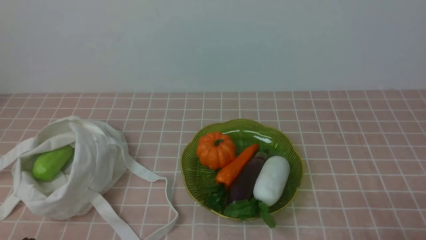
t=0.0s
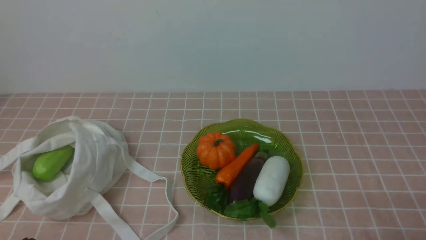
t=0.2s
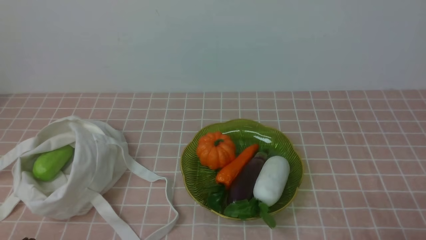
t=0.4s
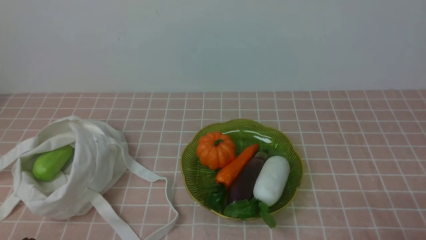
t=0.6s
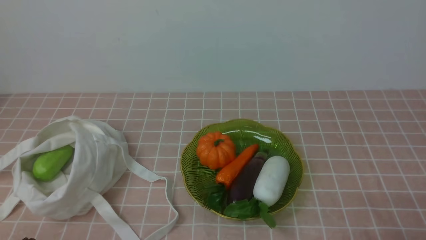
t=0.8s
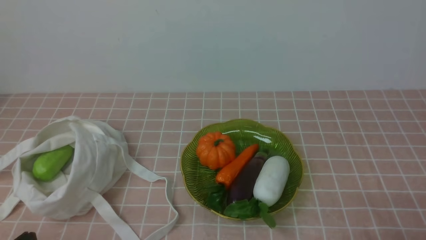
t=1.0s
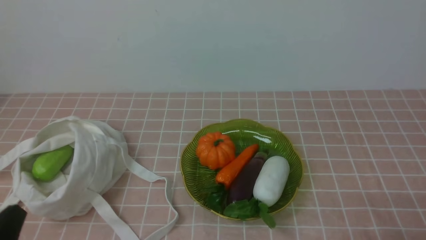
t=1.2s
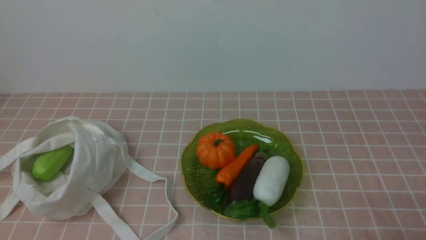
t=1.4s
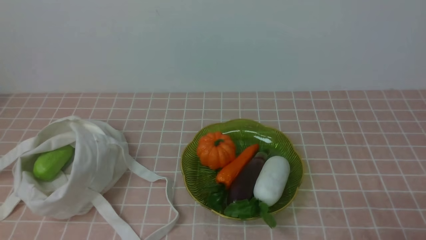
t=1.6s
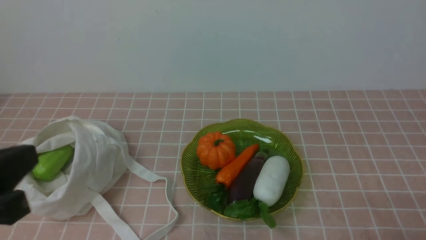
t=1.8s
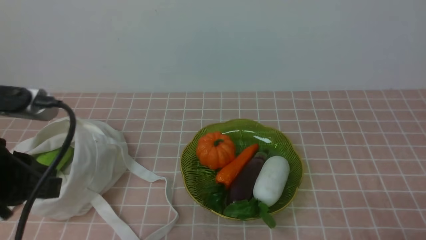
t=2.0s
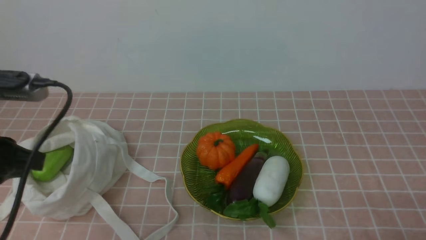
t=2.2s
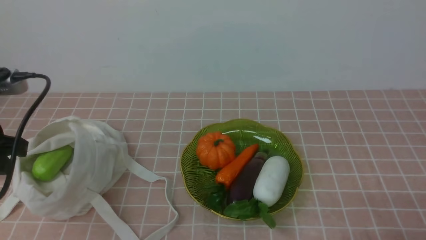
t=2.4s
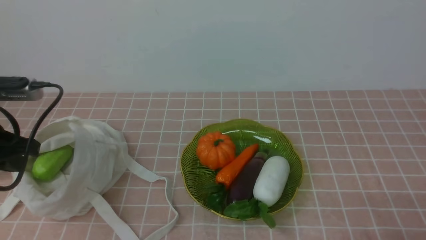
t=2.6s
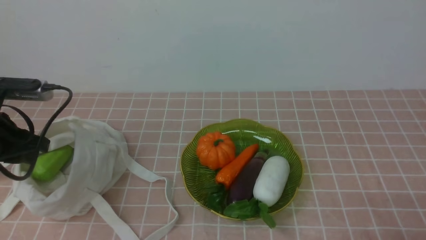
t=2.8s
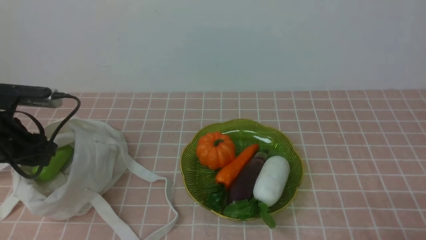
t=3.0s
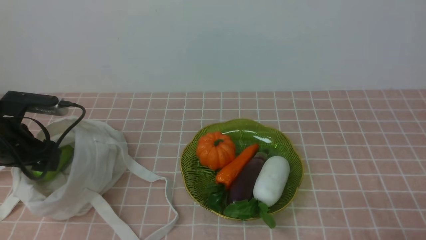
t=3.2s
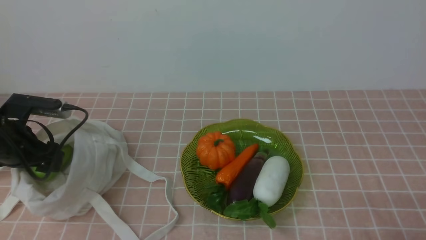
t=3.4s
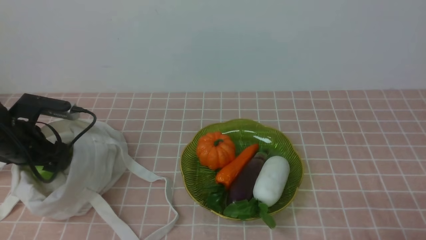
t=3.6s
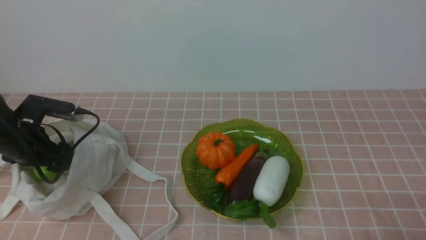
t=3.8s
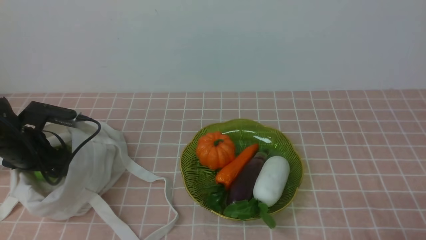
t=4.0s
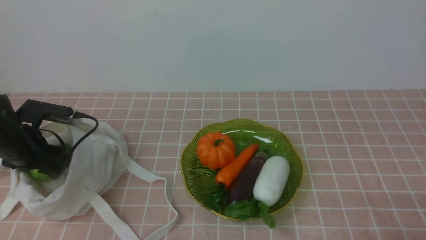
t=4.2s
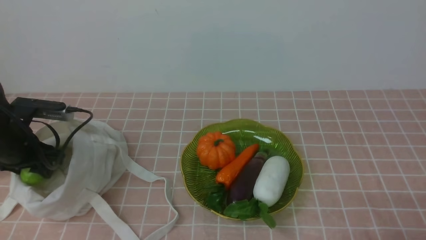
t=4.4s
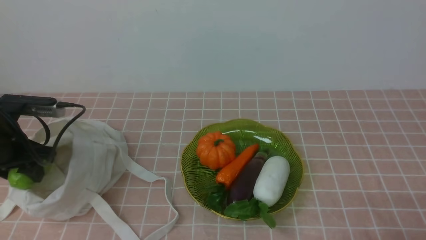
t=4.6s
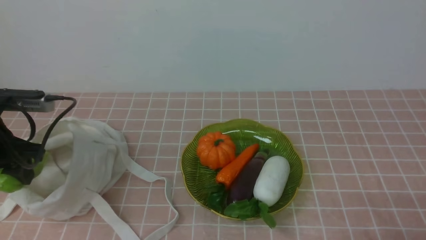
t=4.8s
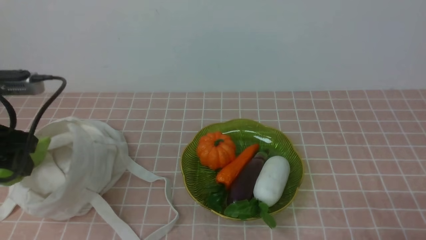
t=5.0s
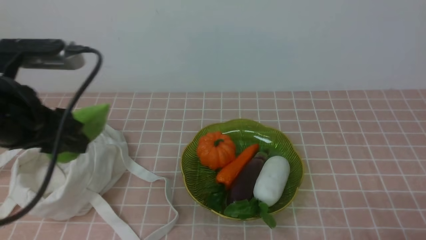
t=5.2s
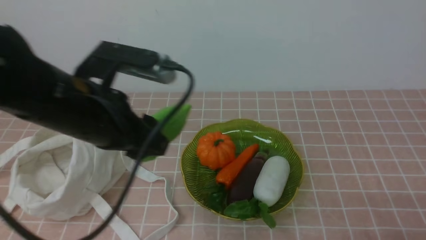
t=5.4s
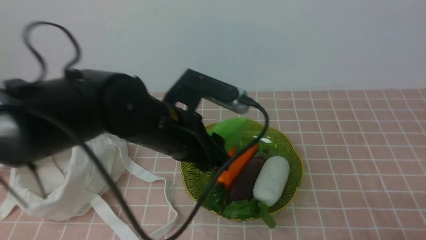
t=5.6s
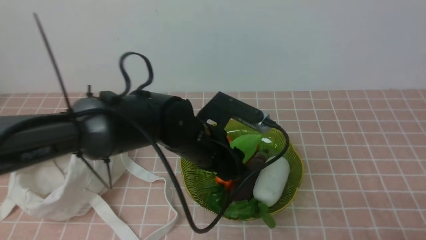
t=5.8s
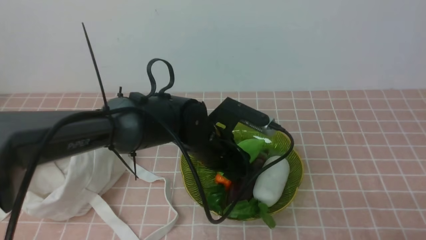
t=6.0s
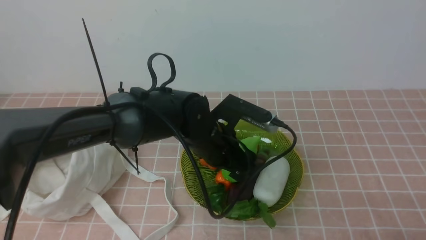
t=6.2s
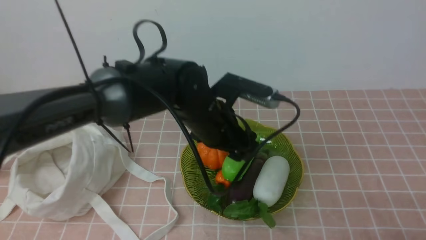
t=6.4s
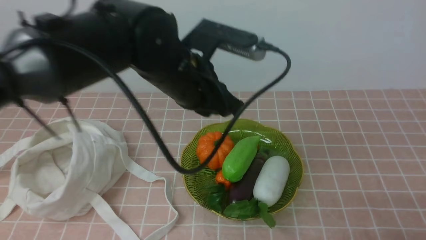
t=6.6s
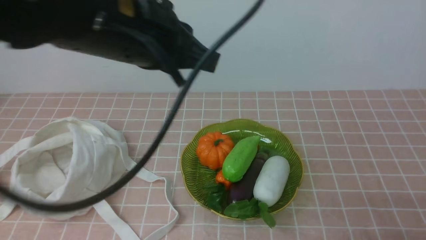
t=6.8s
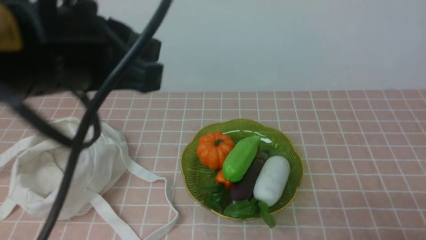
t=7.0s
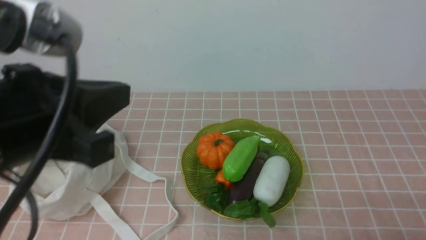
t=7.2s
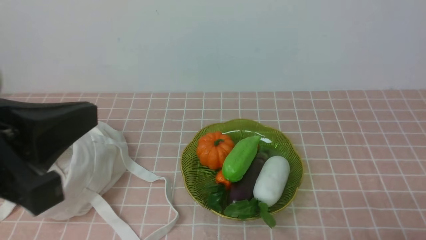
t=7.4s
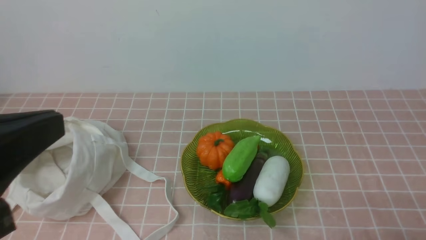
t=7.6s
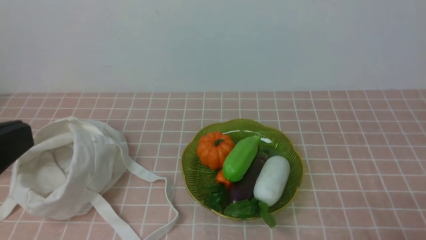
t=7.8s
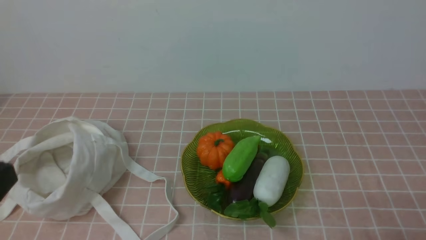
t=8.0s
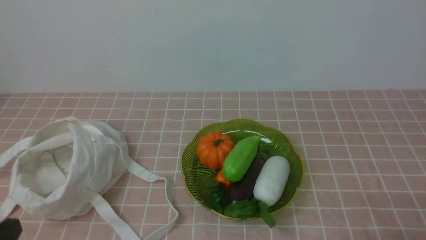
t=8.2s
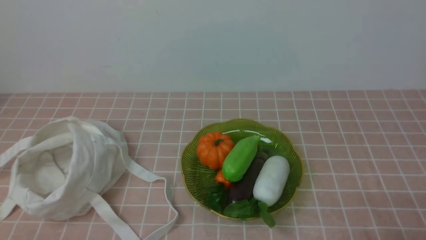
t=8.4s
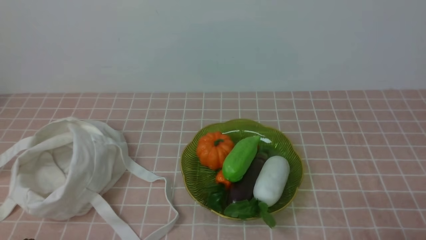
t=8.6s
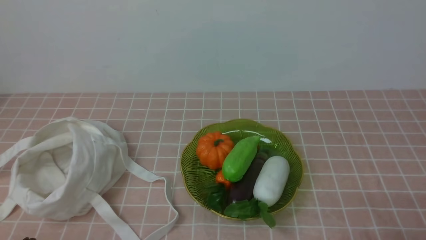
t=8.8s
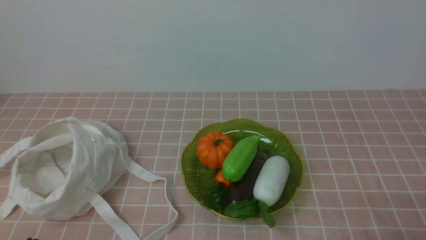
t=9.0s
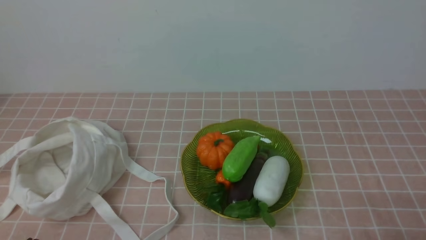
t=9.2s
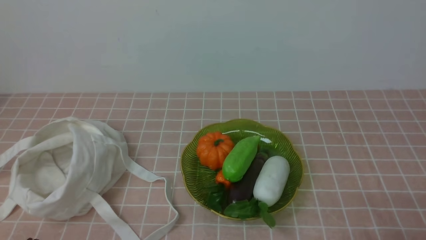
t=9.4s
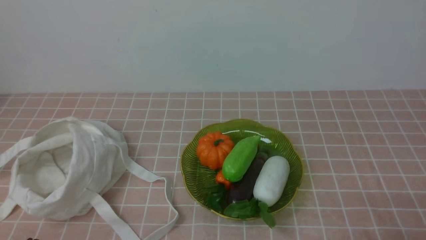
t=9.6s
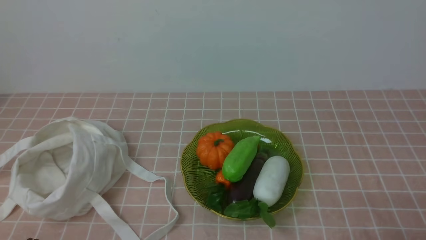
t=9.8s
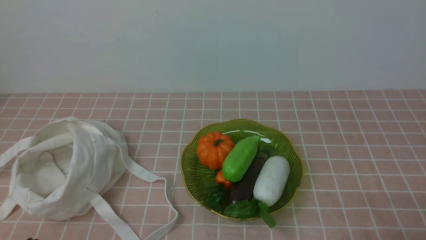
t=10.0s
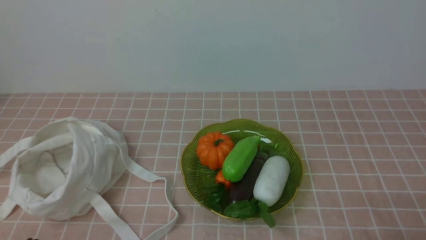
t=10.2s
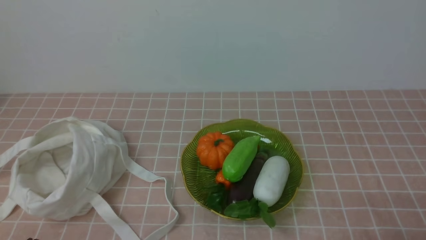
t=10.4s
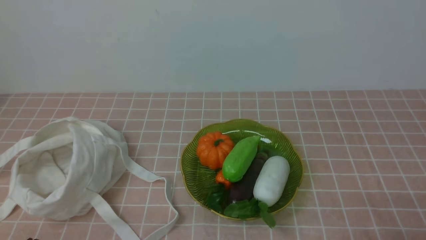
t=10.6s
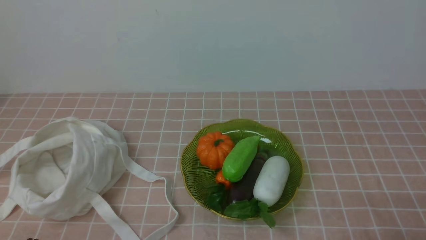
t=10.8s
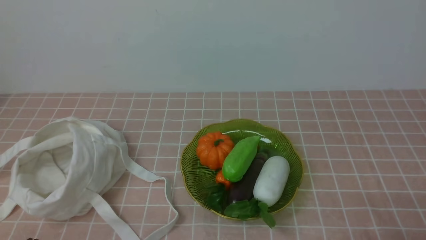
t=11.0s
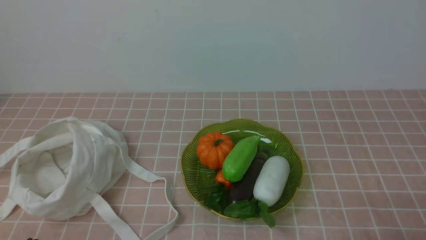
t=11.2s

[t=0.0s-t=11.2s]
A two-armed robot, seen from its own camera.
Task of the whole recording: take vegetables from bag on pink coffee tablecloth place on plate.
Step, t=0.0s to t=4.0s: Grasp the bitter melon with left gripper.
Step, t=4.4s to t=6.6s: Place the bitter melon on the plate with left gripper.
t=1.6s to t=3.2s: The left gripper moves forward and downward, approximately 25 cm, and opens its fingers.
t=3.2s to t=4.8s: The left gripper shifts some 5 cm upward.
t=4.8s to t=6.4s: The left gripper is displaced to the right by some 30 cm.
t=6.4s to t=8.0s: The left gripper moves backward and to the left, roughly 35 cm, and closes.
t=9.6s to t=11.2s: Both grippers stay put.

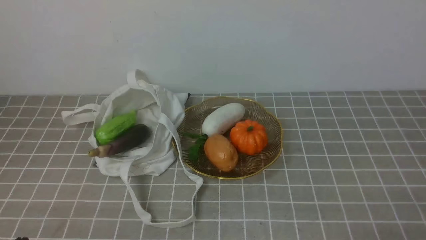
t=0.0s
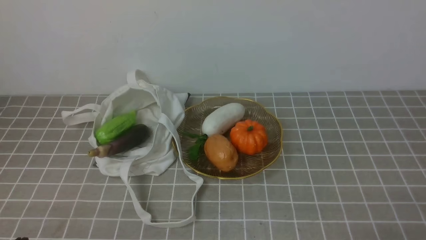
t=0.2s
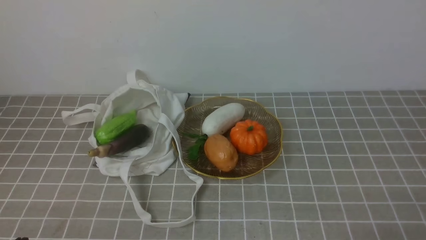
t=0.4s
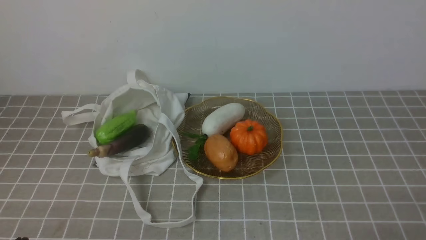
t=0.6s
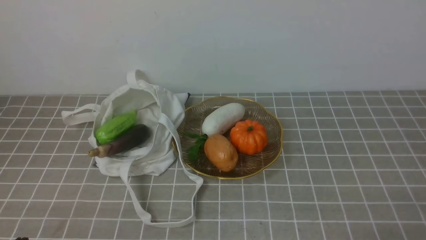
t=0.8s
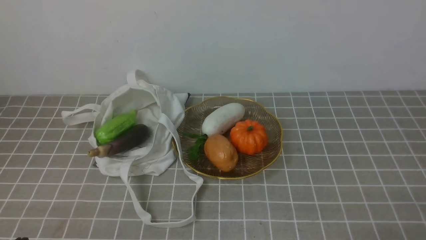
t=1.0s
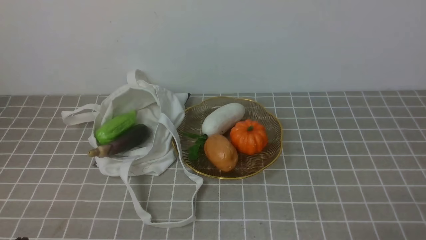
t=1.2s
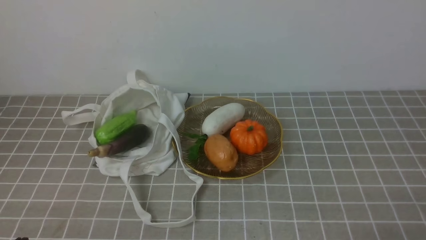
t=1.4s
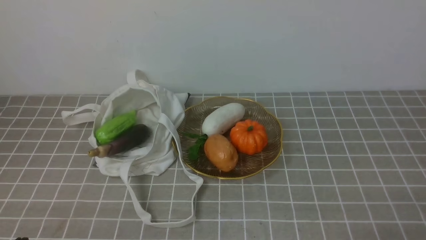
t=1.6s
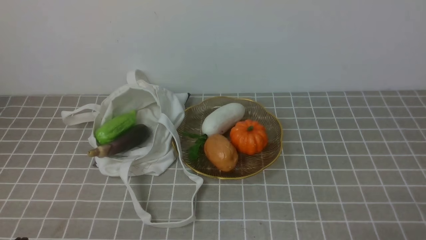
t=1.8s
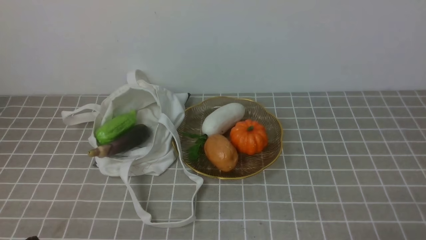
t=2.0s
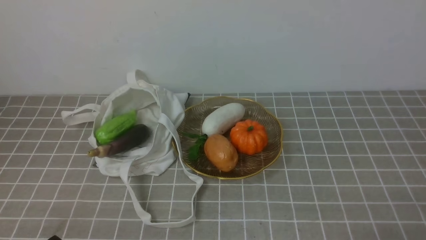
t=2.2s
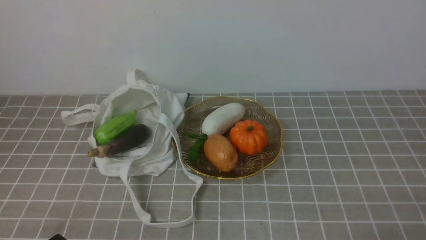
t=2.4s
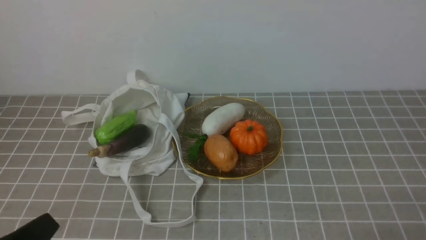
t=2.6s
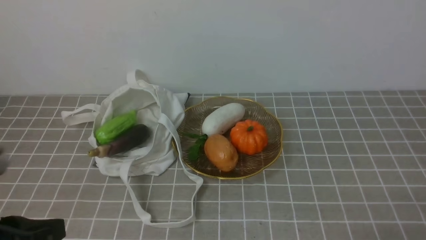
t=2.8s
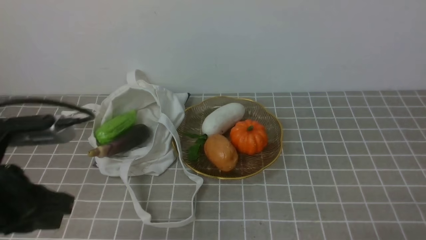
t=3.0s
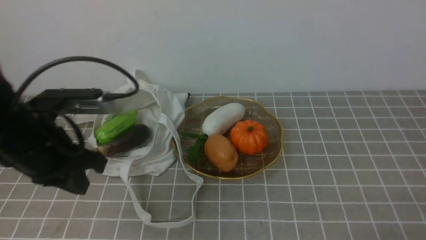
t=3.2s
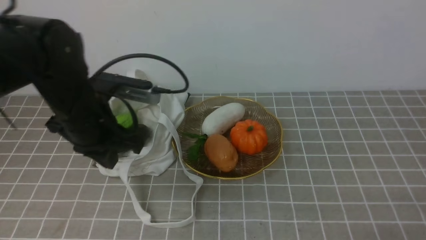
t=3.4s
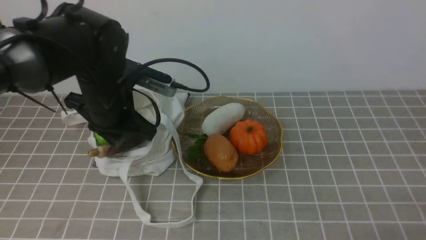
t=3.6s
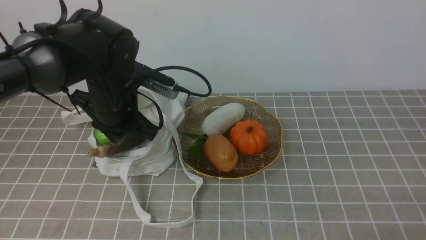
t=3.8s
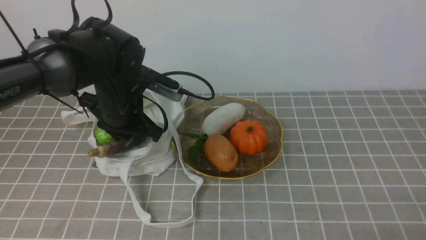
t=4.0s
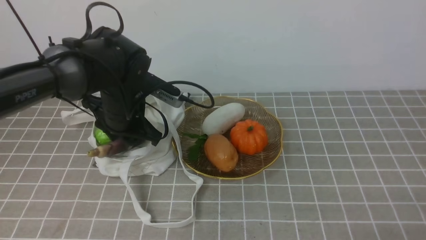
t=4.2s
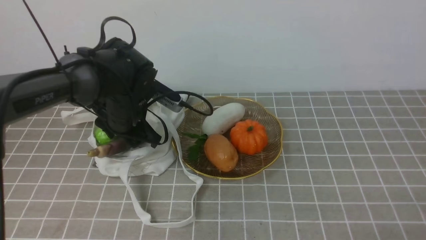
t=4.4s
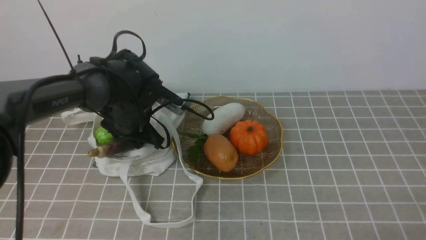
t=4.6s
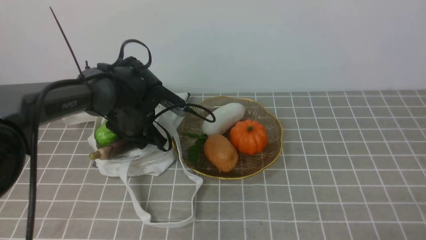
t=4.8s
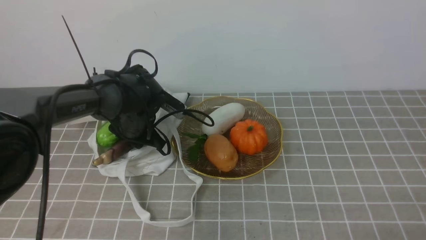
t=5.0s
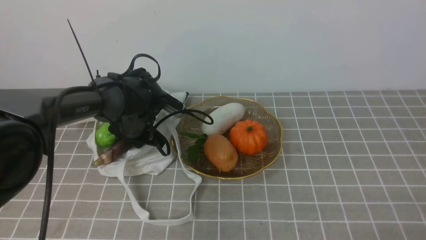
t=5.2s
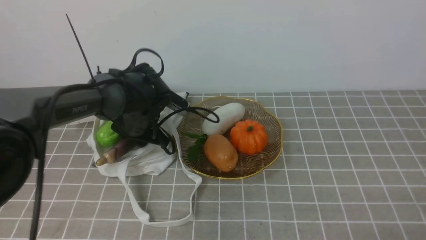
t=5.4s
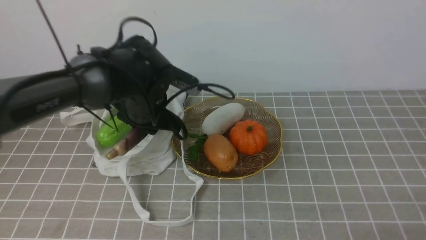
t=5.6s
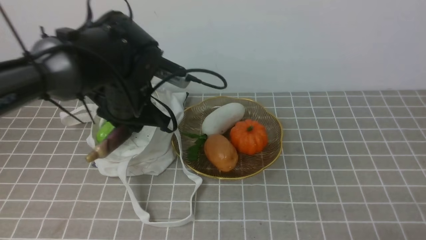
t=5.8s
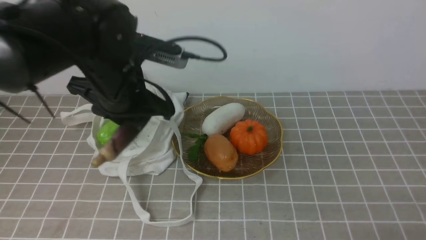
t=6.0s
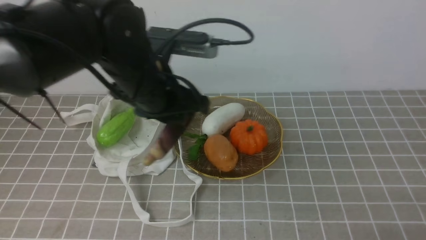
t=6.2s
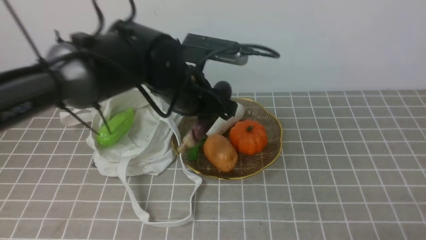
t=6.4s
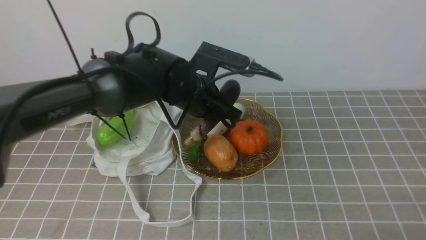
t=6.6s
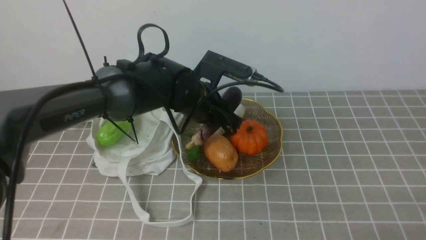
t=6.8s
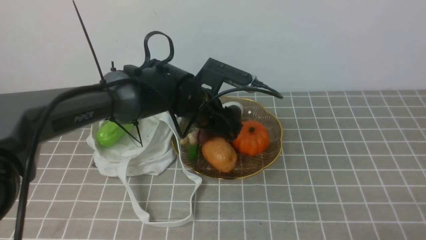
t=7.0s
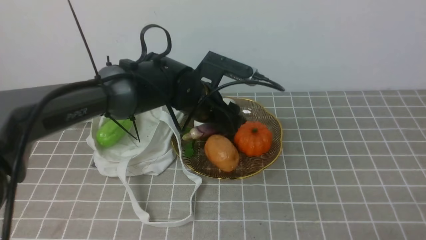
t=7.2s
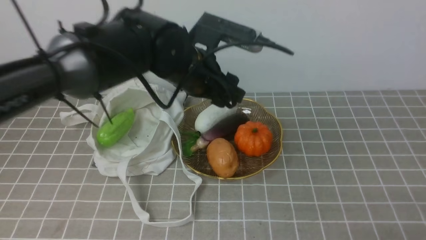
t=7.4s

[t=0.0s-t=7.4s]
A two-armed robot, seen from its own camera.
Task of the whole recording: take vegetables from bag on grey coffee tablecloth place on plate.
Step, t=0.0s to t=5.0s: Grasp the eggplant with left gripper.
t=1.4s to t=3.0s: The left gripper heads upward and forward, covering about 15 cm.
t=3.0s to t=4.4s: The left gripper is displaced forward by roughly 25 cm, and opens up.
t=4.4s to t=6.0s: The left gripper goes about 10 cm upward.
t=6.0s to t=7.4s: The left gripper goes roughly 5 cm to the right, travels downward and back again, about 5 cm each way, and opens its fingers.
